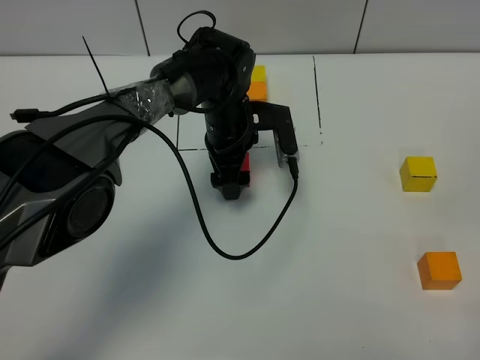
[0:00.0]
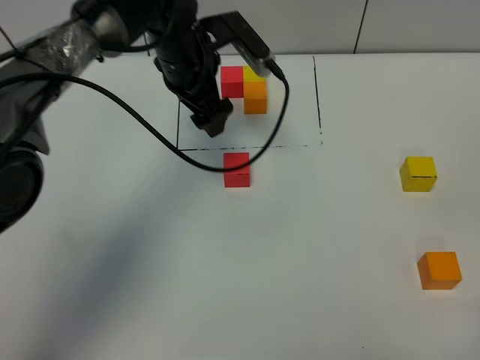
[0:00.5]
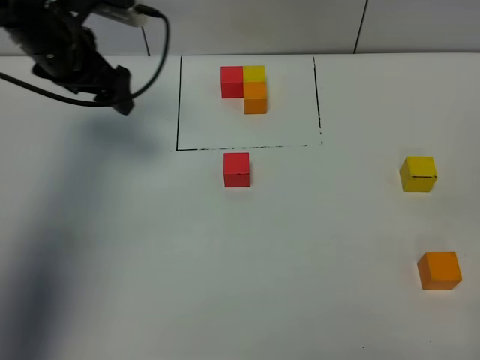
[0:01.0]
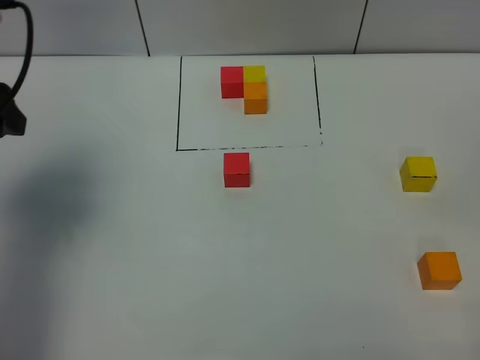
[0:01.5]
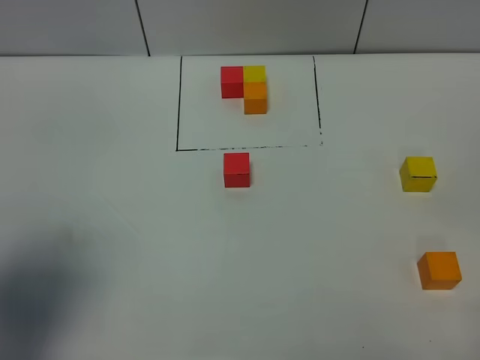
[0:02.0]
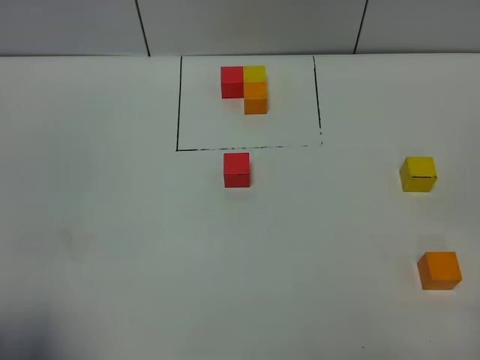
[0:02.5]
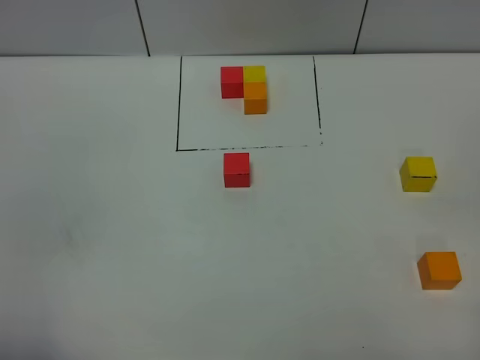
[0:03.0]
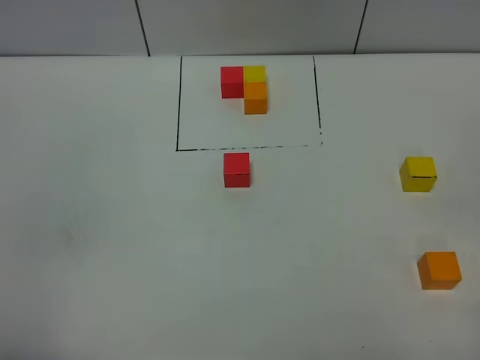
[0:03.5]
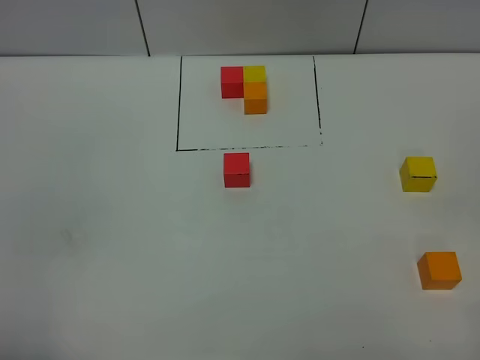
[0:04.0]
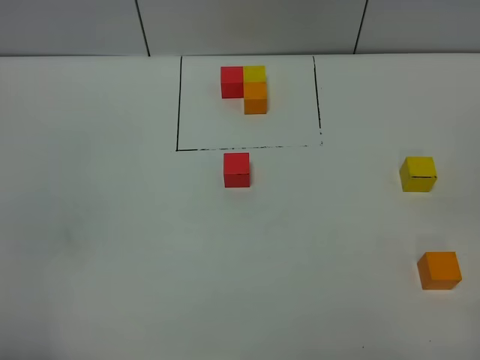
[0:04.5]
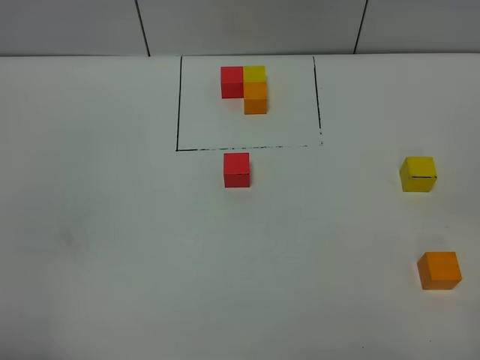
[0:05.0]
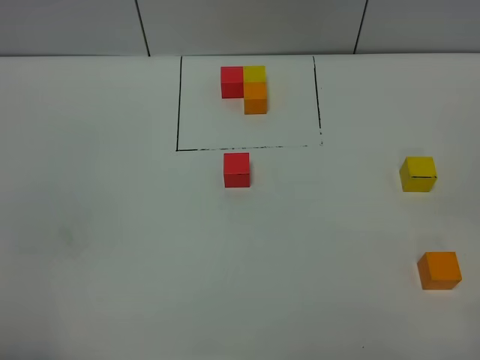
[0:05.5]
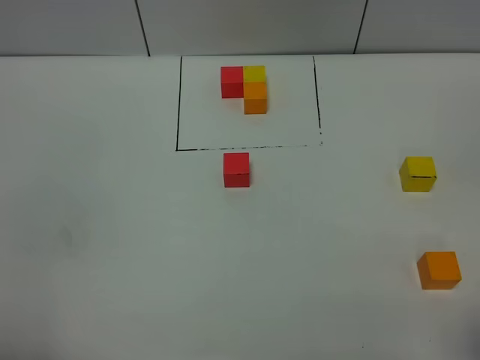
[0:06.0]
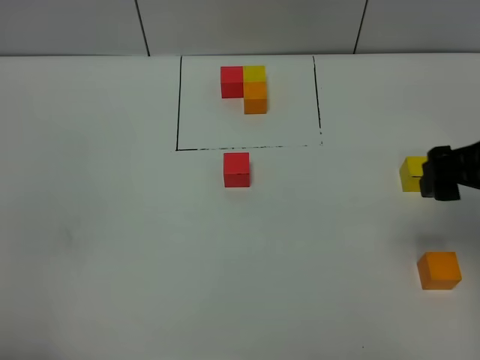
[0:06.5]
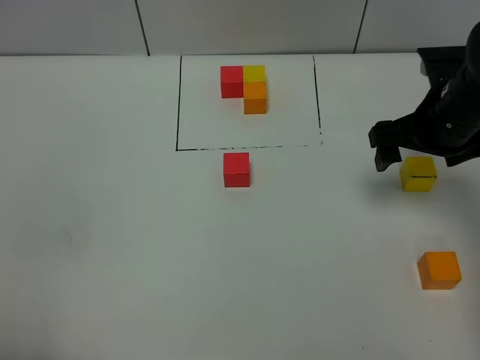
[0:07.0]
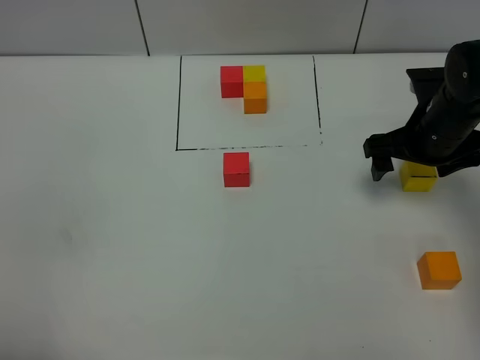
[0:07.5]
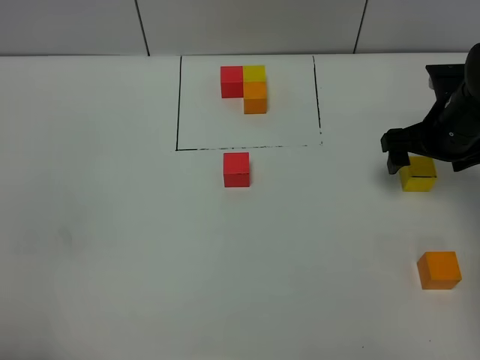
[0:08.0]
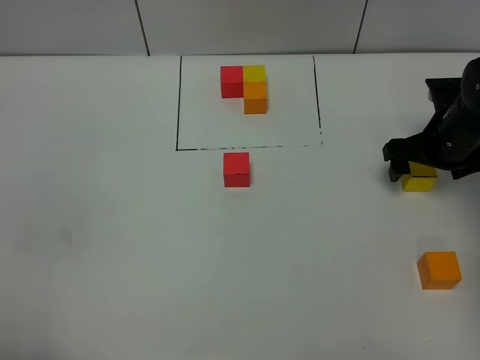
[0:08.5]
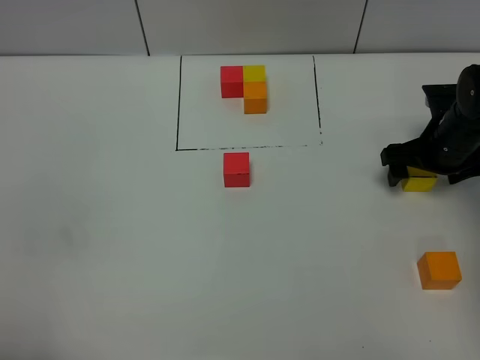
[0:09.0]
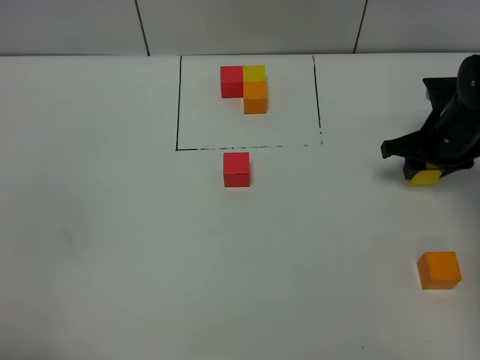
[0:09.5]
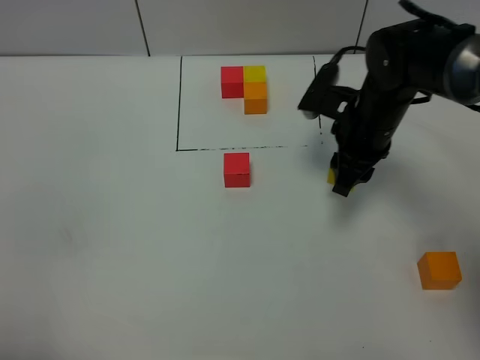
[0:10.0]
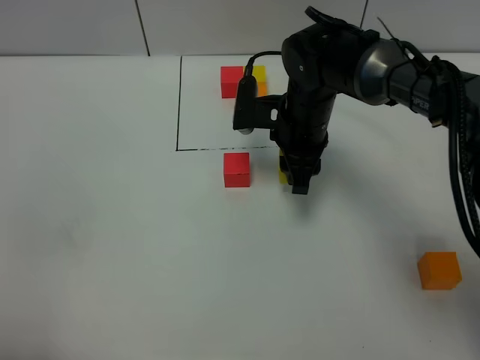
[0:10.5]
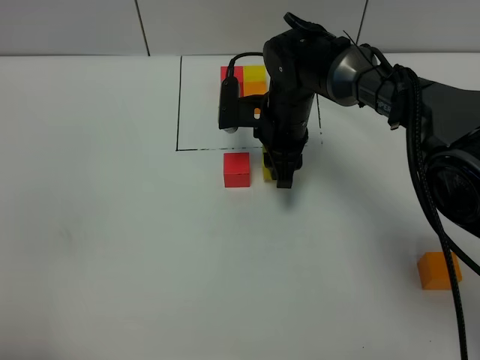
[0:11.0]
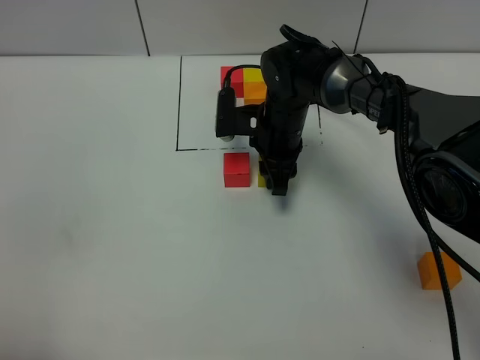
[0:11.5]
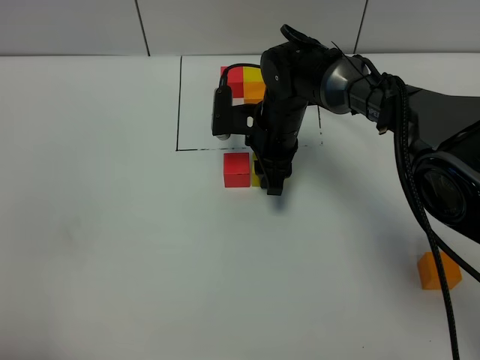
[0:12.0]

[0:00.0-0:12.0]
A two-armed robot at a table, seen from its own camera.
Task of the whole recording: According to the building block template in front, assemble the scattered blocks together.
0:00.0 to 0:02.0: The left gripper heads backward, to the left and upward, covering some 40 cm.
0:02.0 to 0:04.0: The left gripper travels backward by approximately 15 cm.
0:06.0 to 0:08.0: The right gripper is displaced forward and downward by roughly 35 cm.
0:08.0 to 0:10.0: The right gripper travels to the left by roughly 10 cm, and closes its fingers.
0:10.0 to 0:12.0: The right gripper moves to the left, forward and downward, about 15 cm.

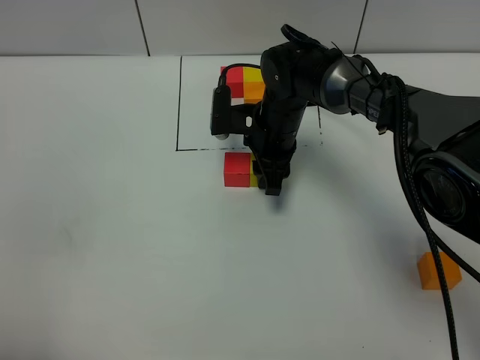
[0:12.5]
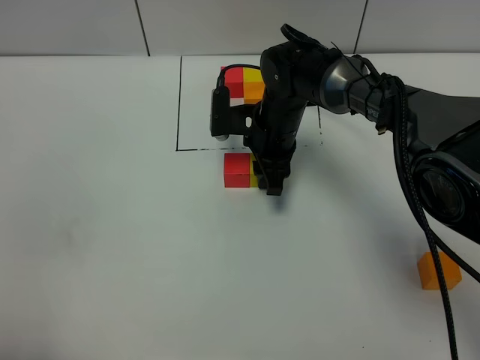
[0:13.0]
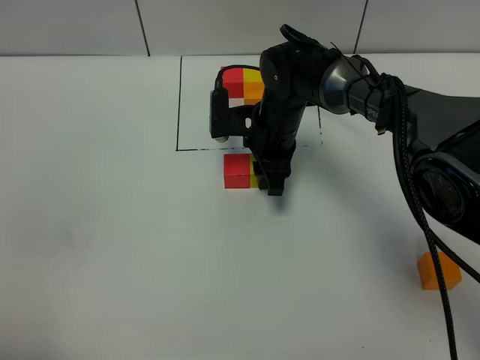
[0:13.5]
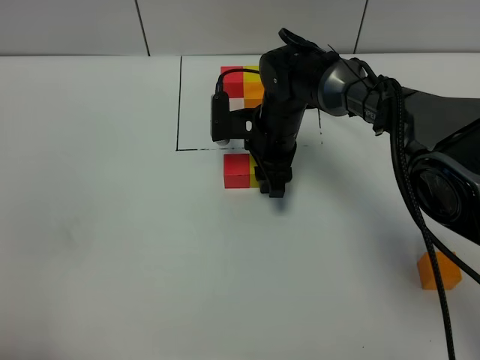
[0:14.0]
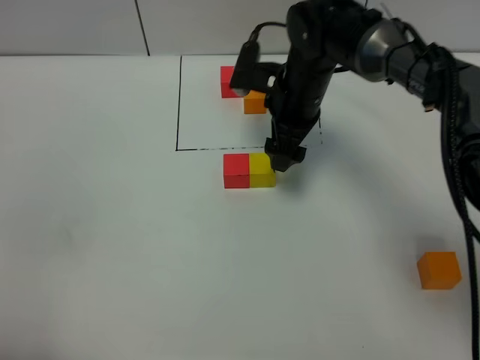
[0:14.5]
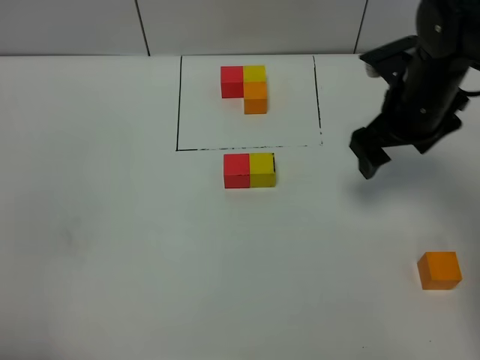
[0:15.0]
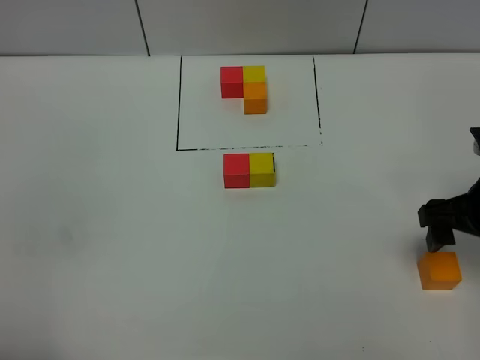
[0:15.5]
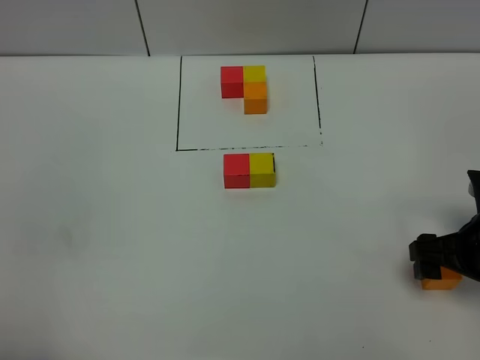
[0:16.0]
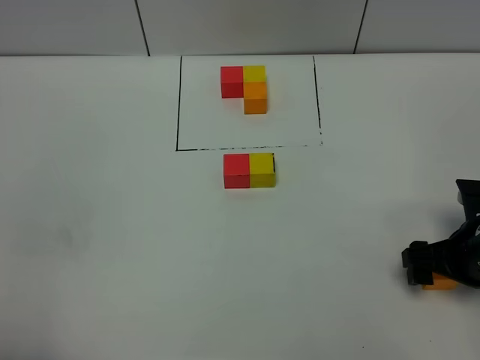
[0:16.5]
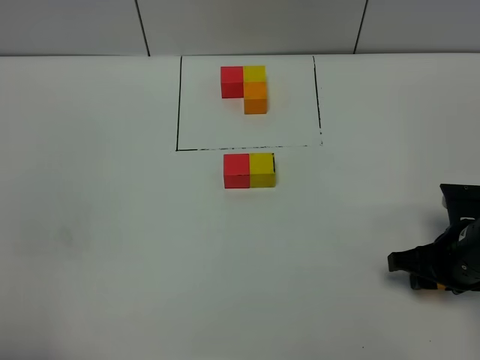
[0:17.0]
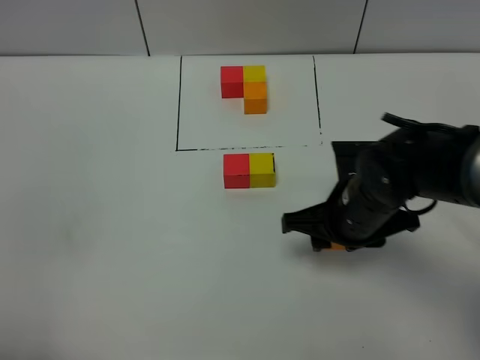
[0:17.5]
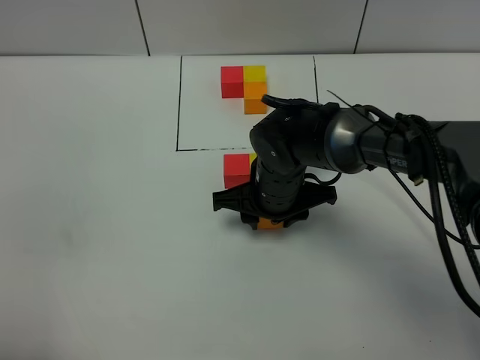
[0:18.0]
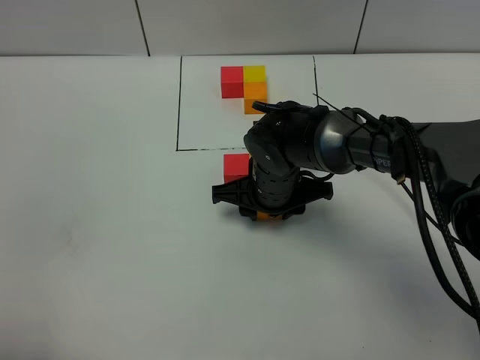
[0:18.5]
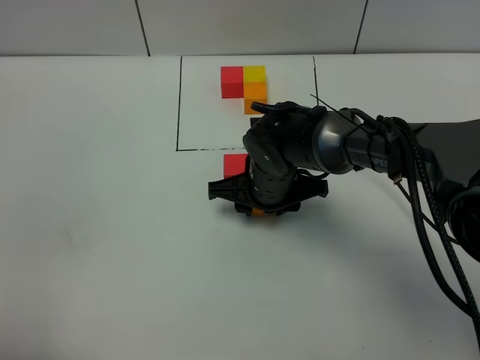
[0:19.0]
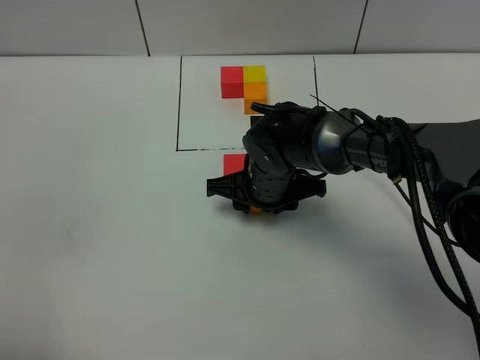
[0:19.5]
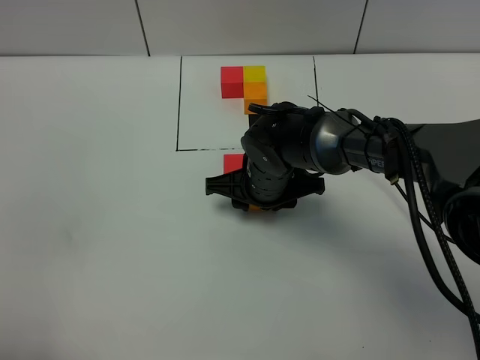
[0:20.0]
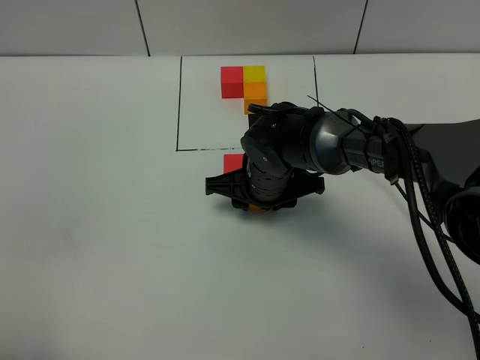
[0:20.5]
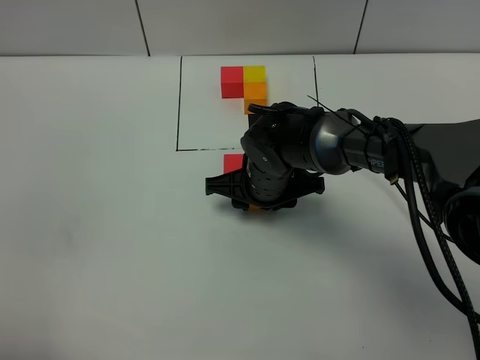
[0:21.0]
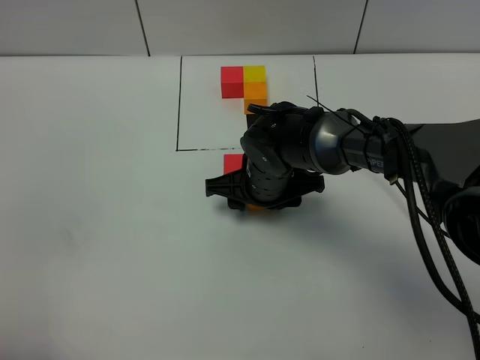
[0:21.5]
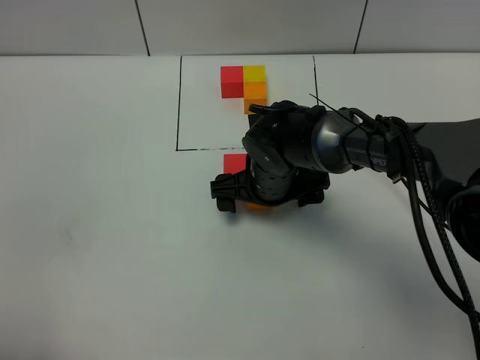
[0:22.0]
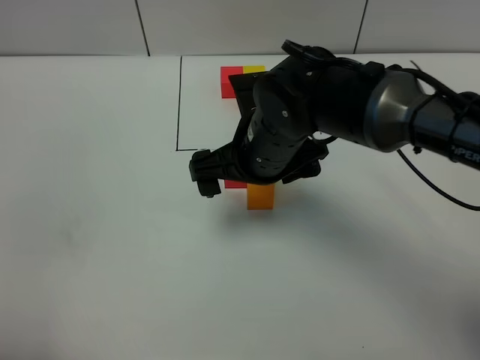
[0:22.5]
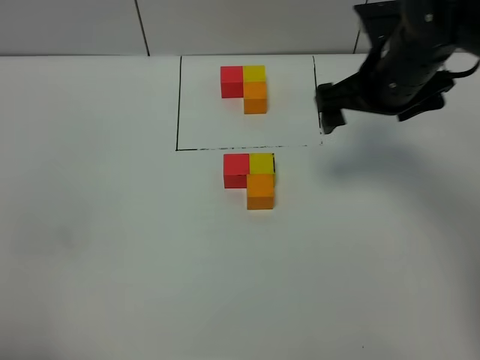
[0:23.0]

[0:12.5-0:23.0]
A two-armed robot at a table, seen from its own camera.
Task of the whole recording: According to the building block template in front, assemble the scattered blocks together.
Step, 0:14.5 to 0:21.5: Put the orange build block on the behind of the yellow build block.
0:12.5 to 0:14.5: The right gripper is displaced upward by some 5 cm, and opens its fingers.
0:14.5 to 0:16.5: The right gripper shifts some 25 cm backward and to the right.
0:16.5 to 0:19.0: The right gripper shifts some 25 cm to the left and forward, and closes its fingers.
0:19.0 to 0:21.0: Both grippers stay about where they are.
0:21.0 to 0:23.0: The right gripper moves to the right and upward, approximately 20 cm, and opens its fingers.

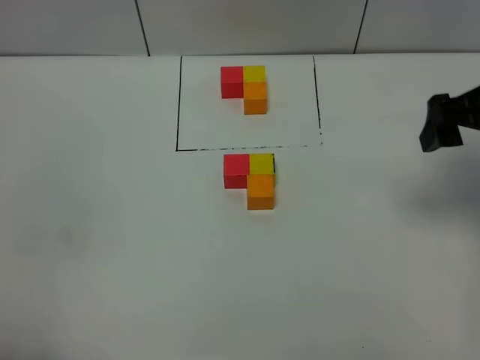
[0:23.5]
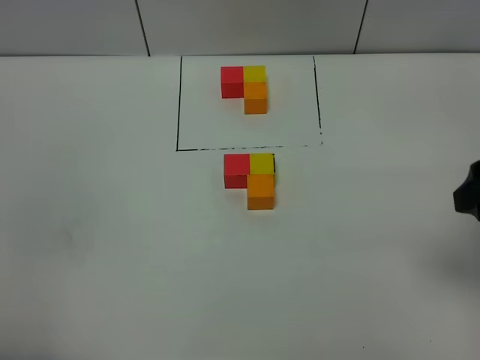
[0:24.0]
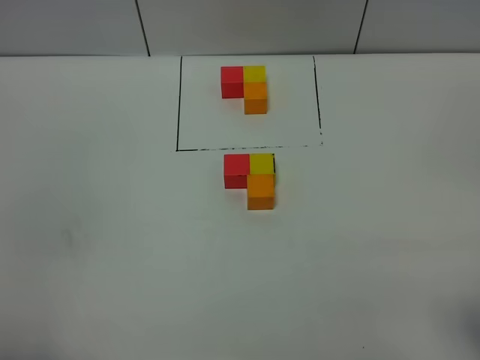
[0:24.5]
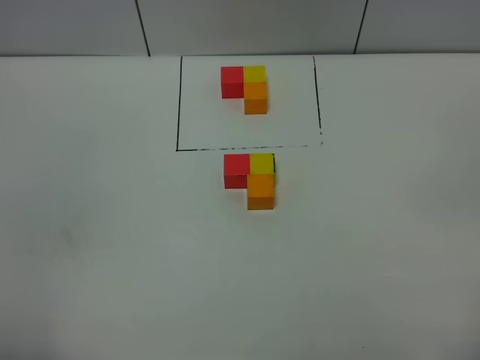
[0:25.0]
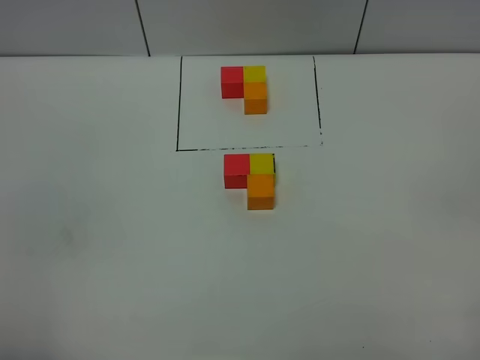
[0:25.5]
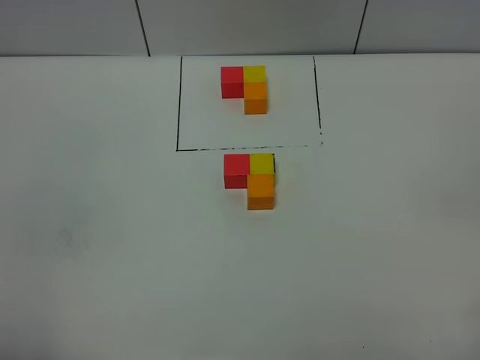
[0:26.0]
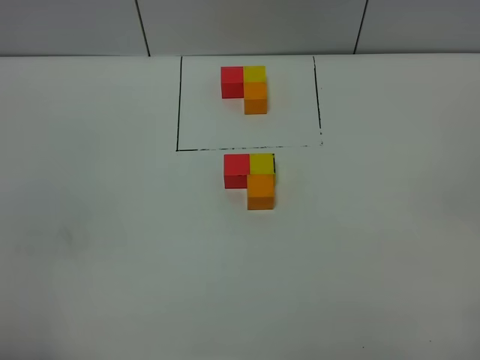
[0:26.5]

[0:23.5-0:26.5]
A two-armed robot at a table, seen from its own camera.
Task of the whole recording: According to the building block template in front, assemble the scattered blocks together.
0:23.5 to 0:25.0: The right gripper moves backward, approximately 25 cm.
